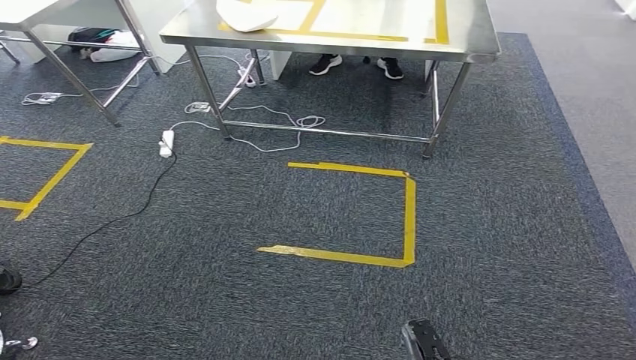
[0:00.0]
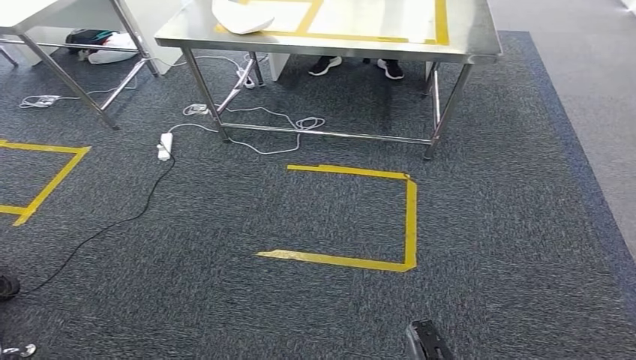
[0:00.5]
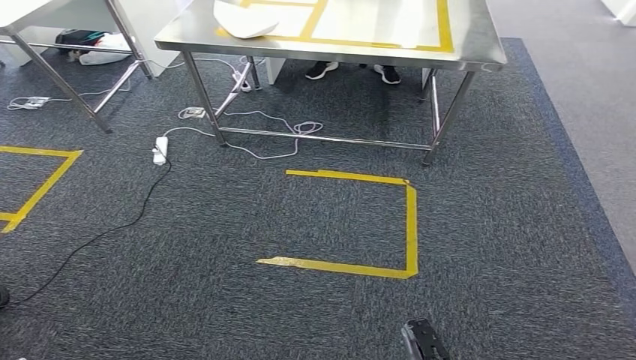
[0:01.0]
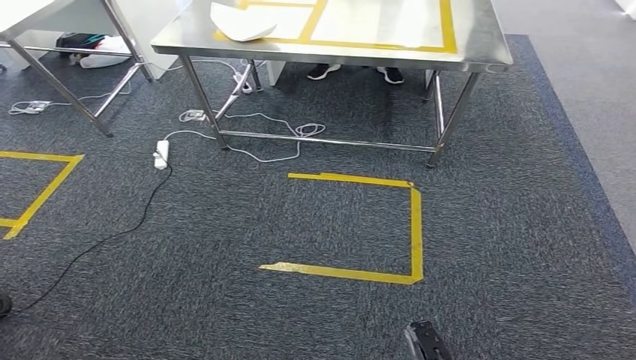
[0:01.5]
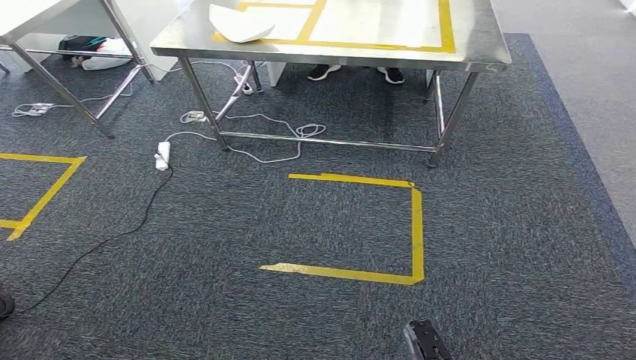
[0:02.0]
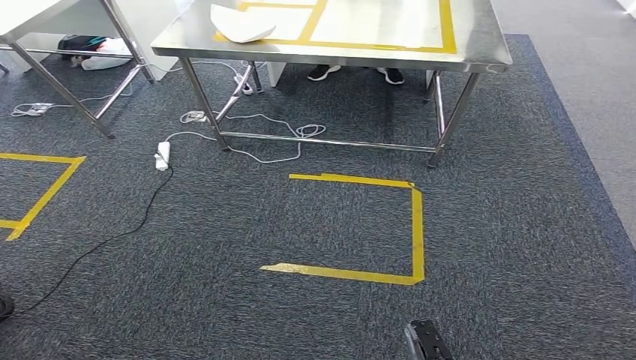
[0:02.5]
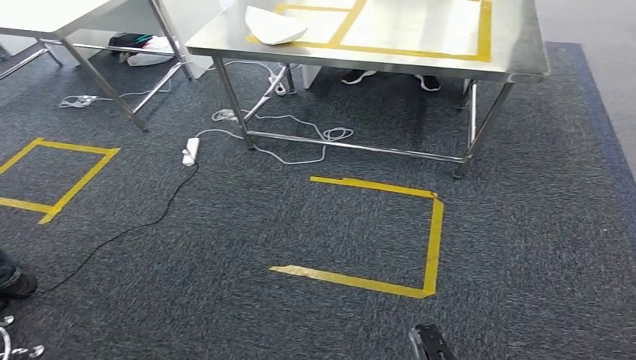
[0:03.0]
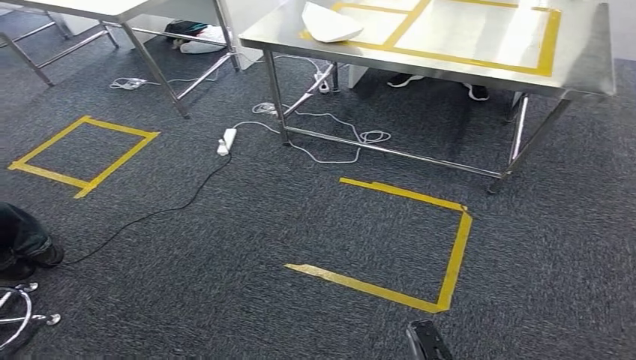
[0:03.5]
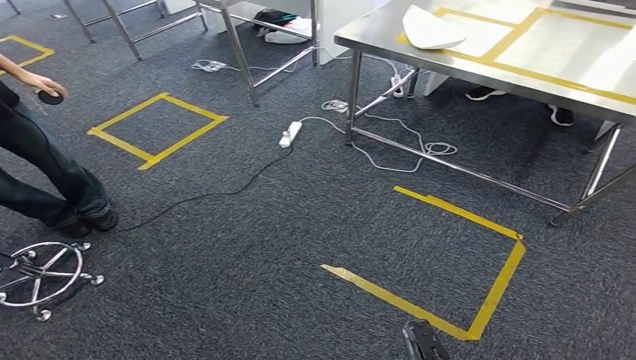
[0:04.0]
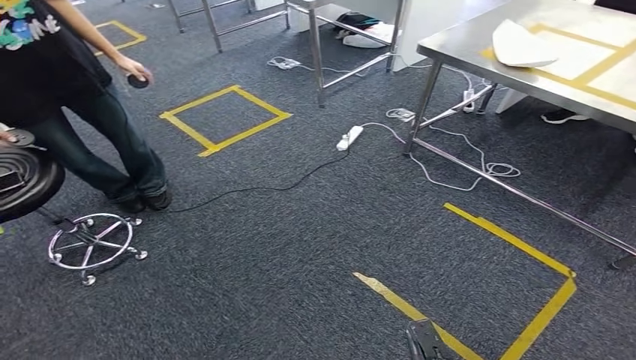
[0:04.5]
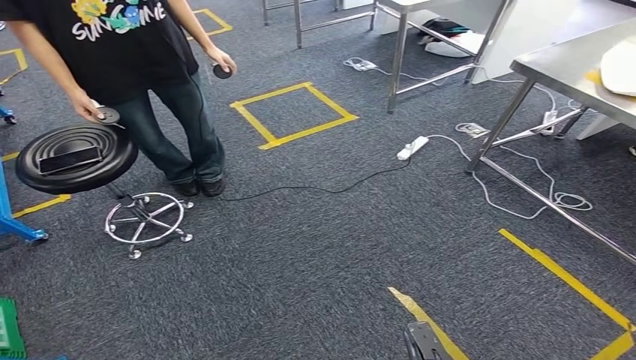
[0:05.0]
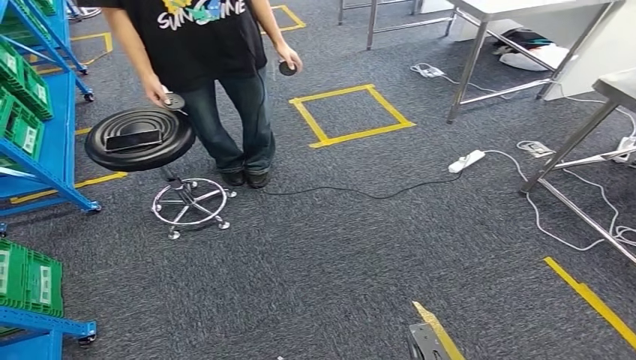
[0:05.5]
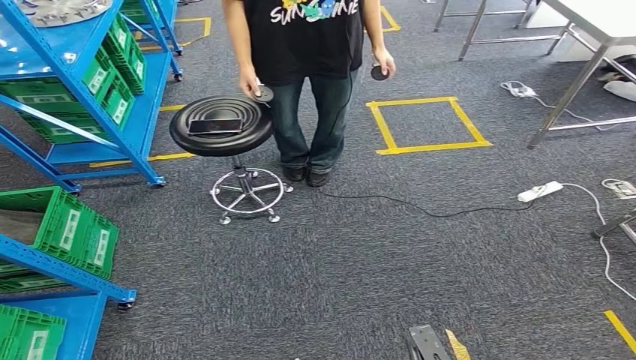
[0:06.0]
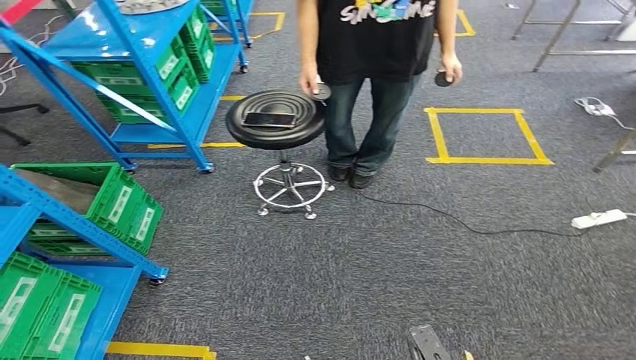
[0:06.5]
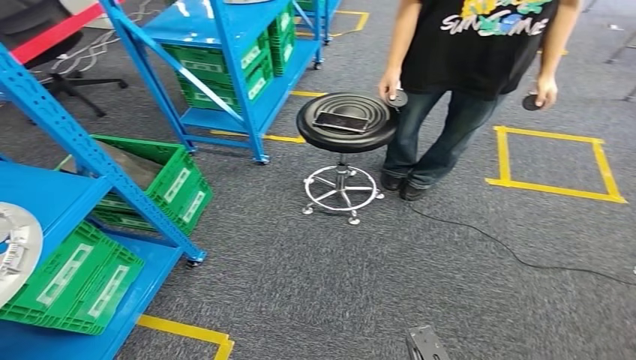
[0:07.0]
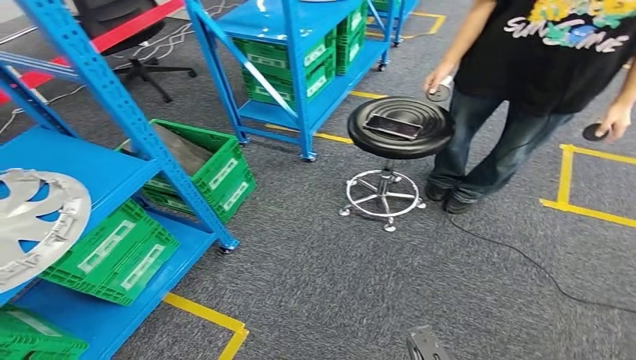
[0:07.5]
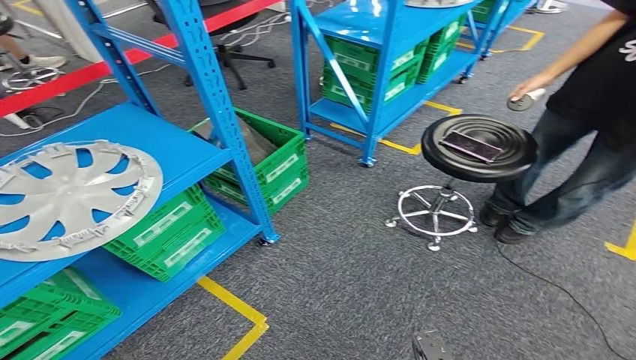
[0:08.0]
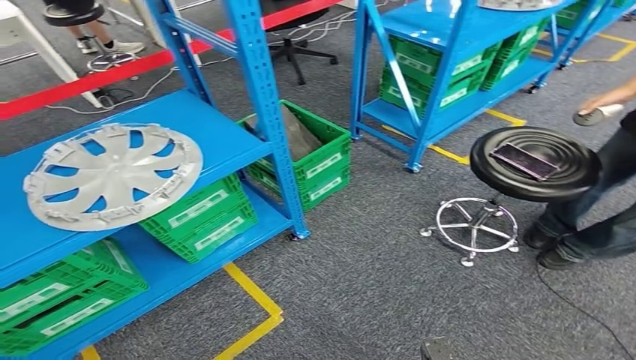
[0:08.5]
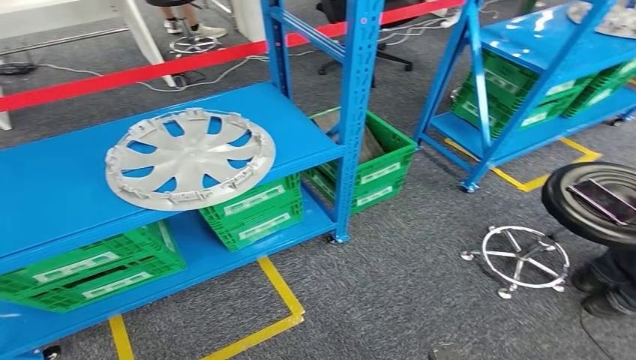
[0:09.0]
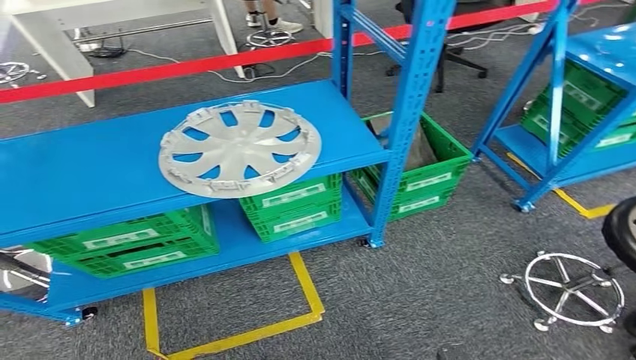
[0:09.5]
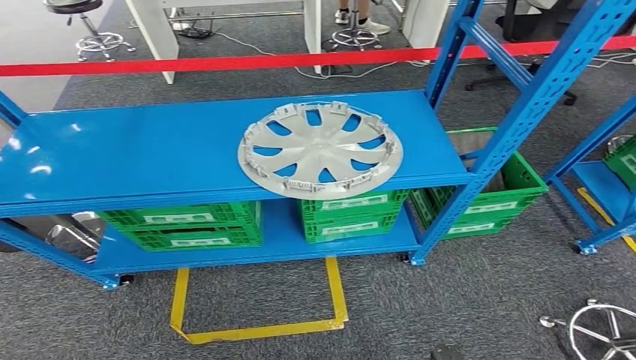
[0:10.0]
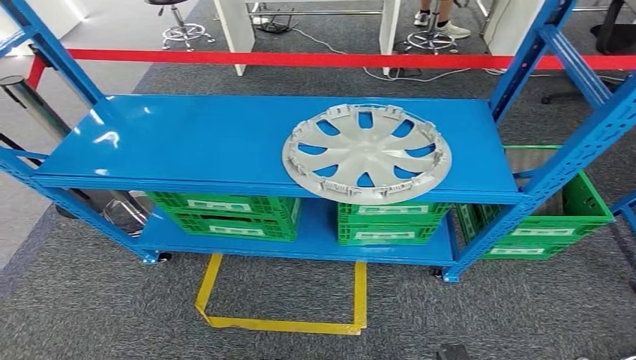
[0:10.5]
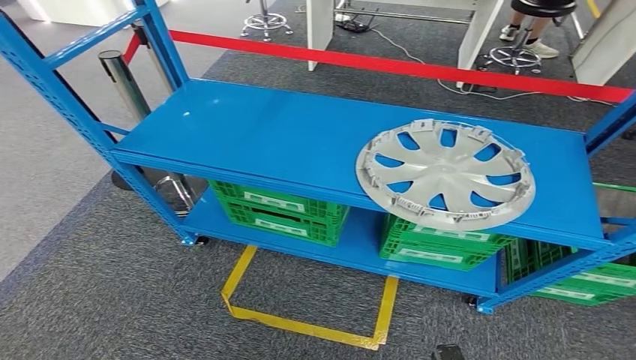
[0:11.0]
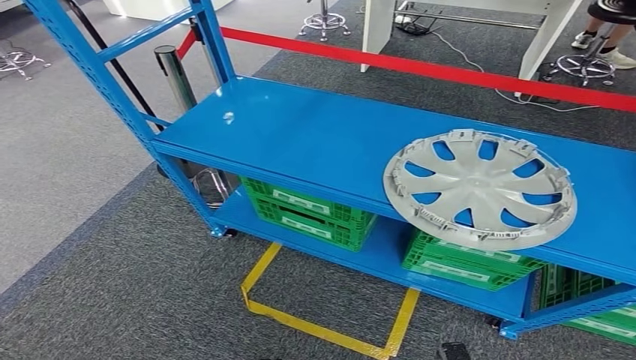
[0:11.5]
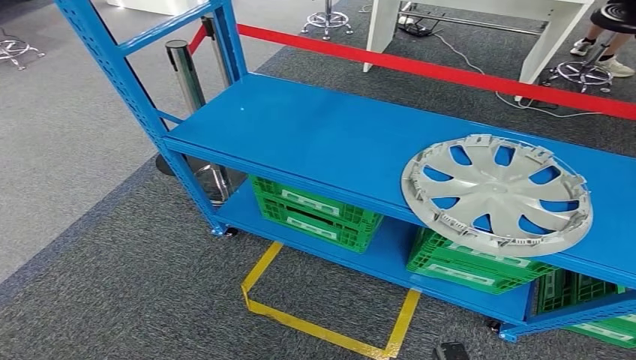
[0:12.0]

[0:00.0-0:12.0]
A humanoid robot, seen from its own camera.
0:00.0 to 0:02.0: The two hands keep their place.

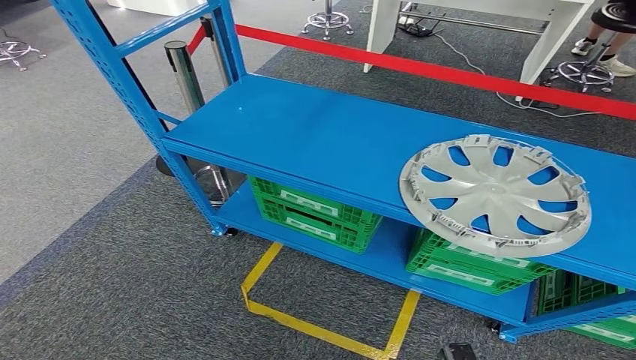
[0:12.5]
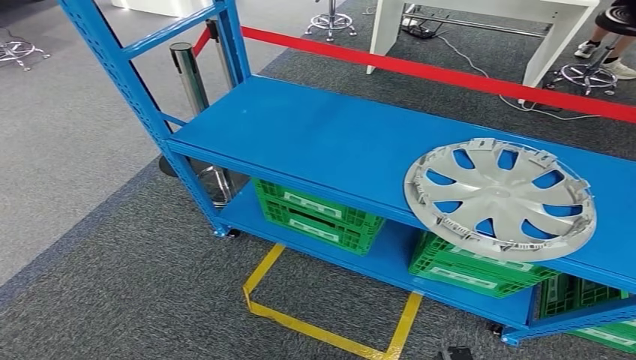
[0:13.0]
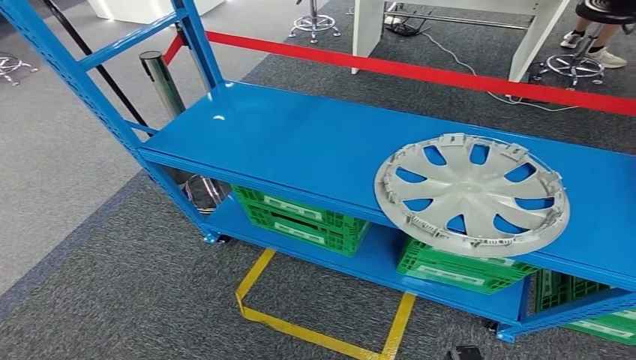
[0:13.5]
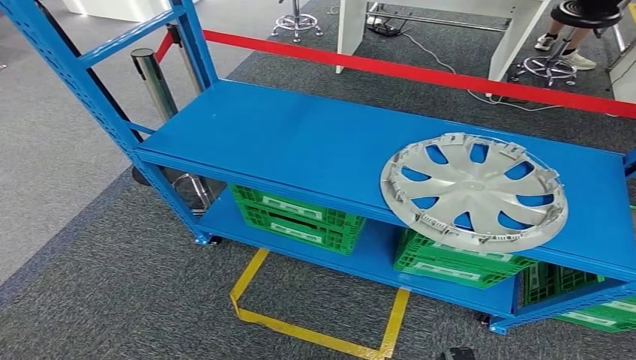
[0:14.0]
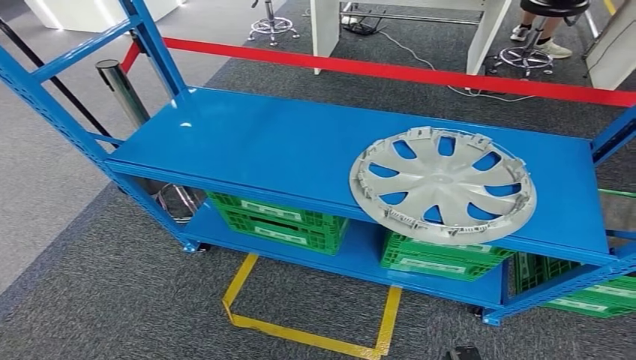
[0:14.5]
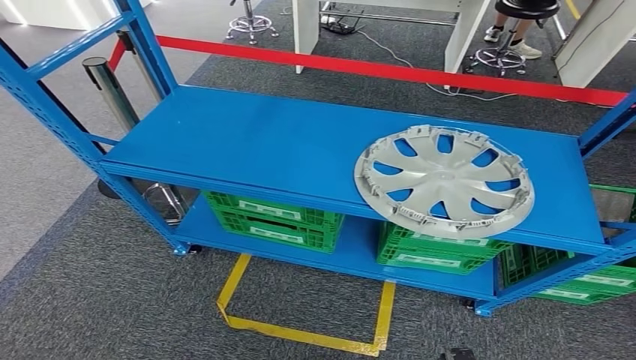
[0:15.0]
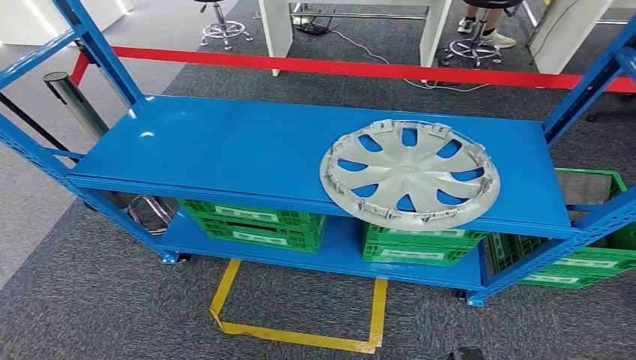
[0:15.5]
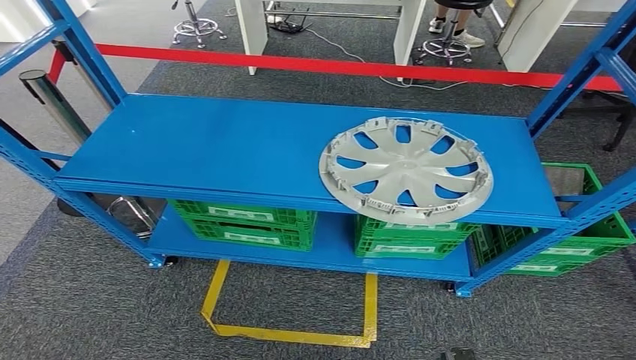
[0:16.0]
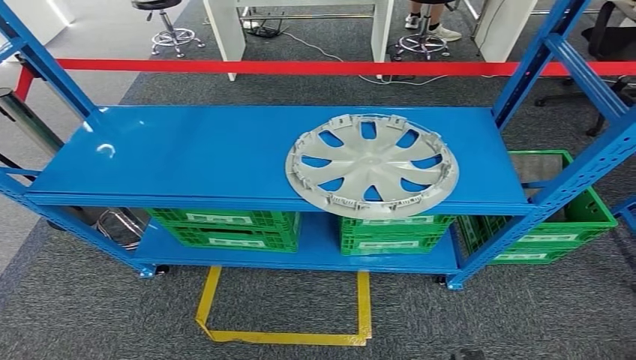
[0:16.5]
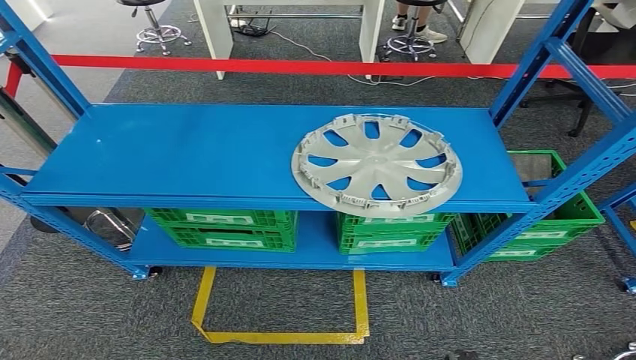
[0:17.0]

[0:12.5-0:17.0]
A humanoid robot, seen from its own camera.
Step, 0:12.5 to 0:17.0: Return to the initial position at the workbench.
